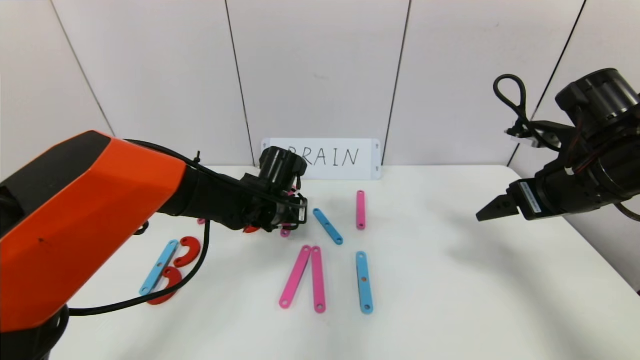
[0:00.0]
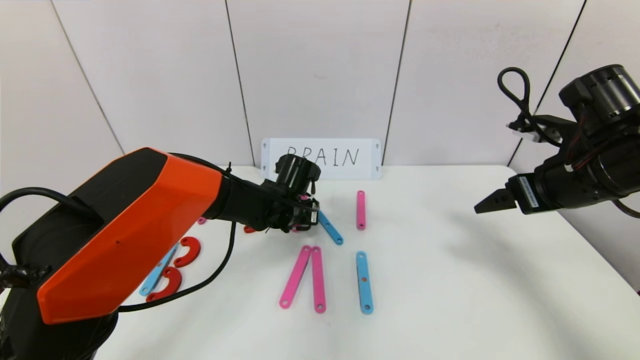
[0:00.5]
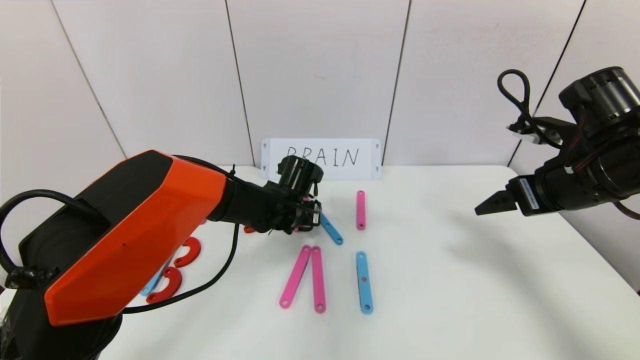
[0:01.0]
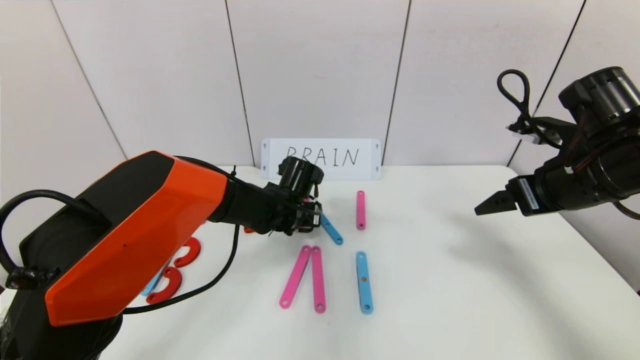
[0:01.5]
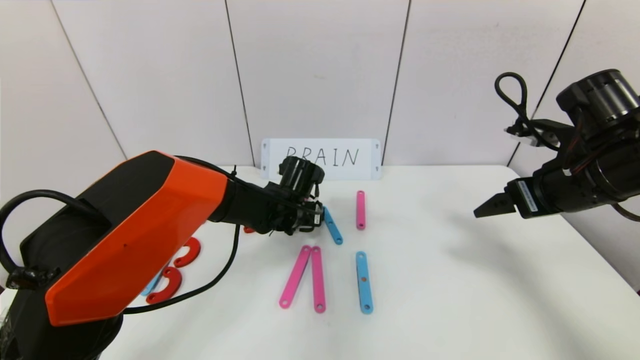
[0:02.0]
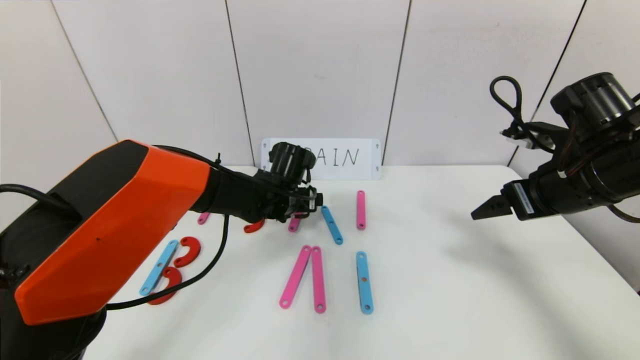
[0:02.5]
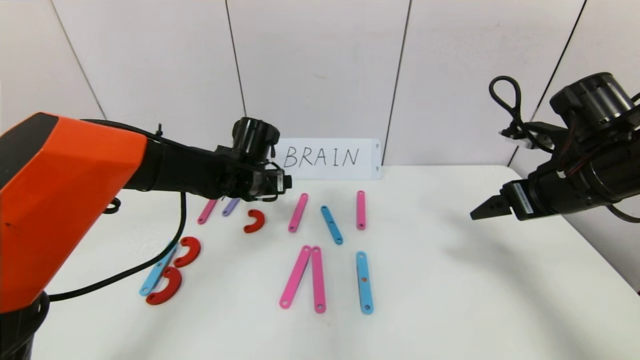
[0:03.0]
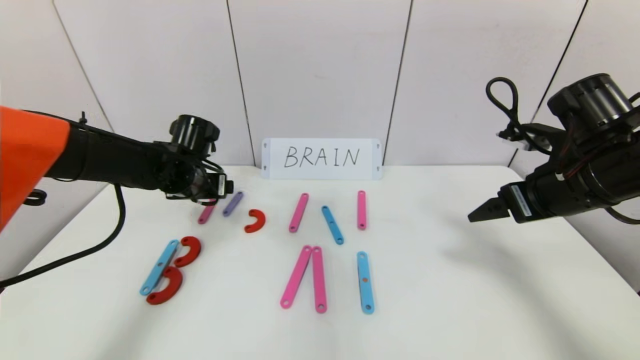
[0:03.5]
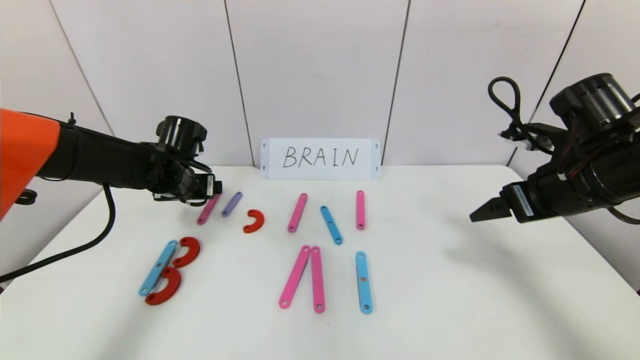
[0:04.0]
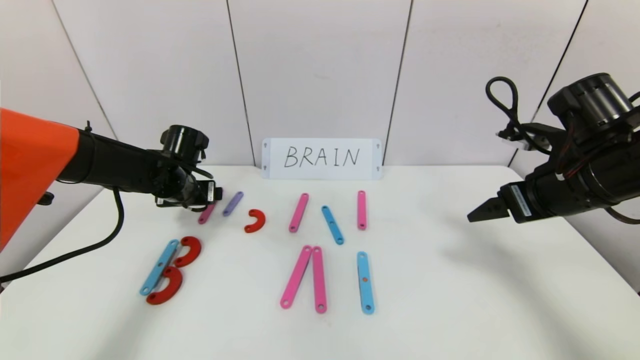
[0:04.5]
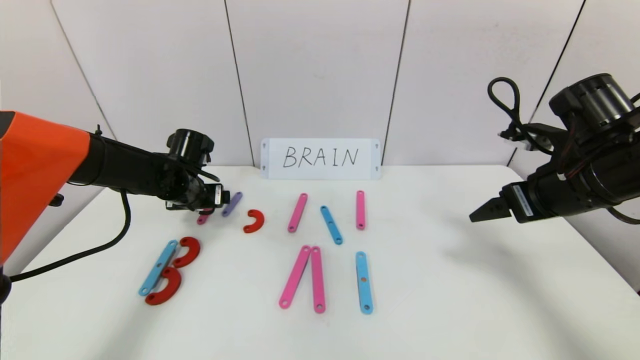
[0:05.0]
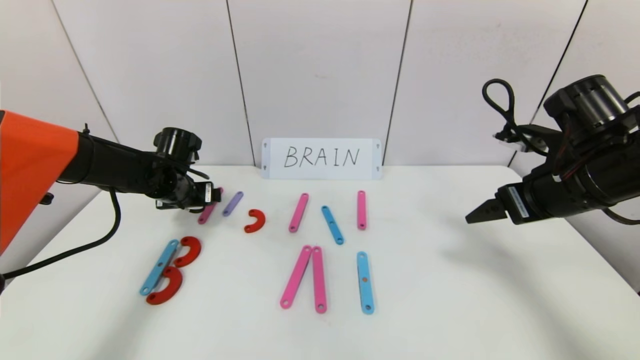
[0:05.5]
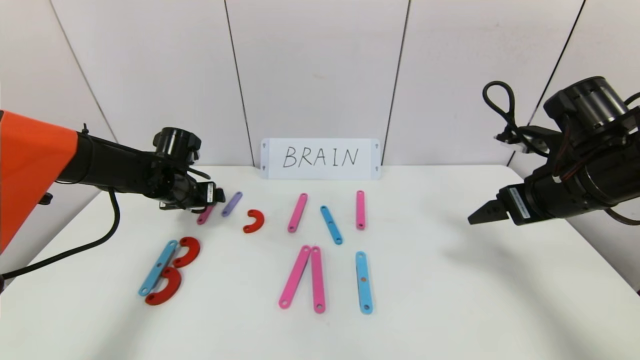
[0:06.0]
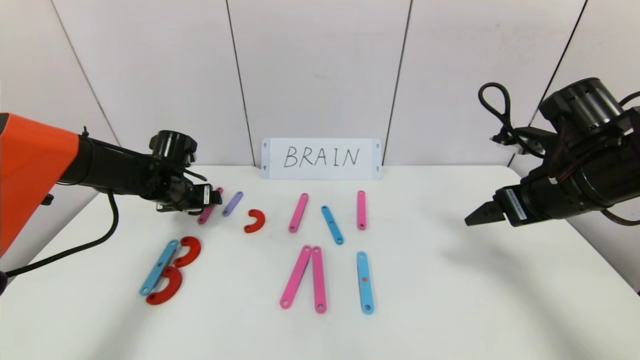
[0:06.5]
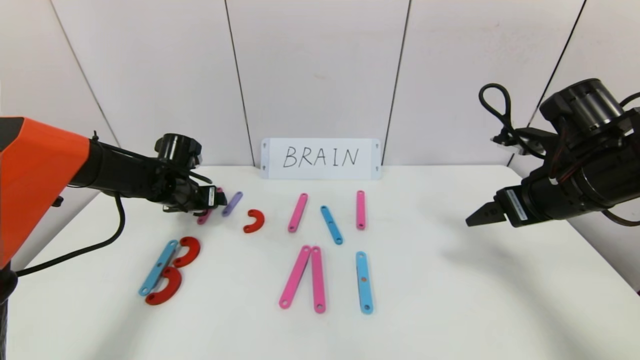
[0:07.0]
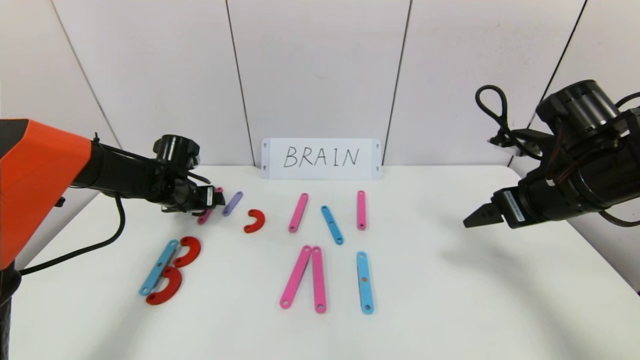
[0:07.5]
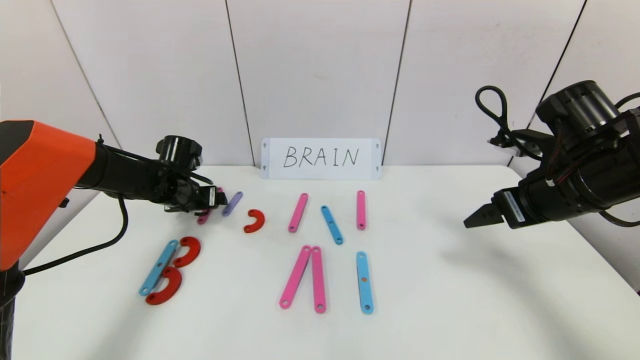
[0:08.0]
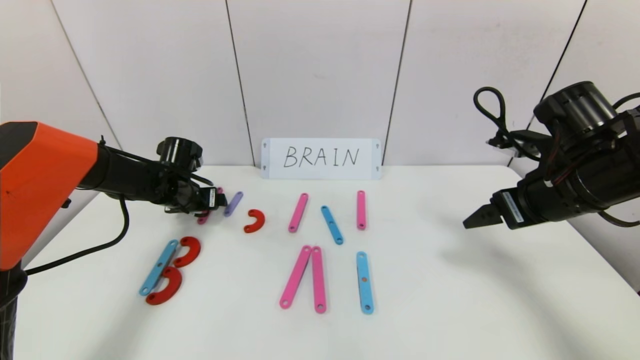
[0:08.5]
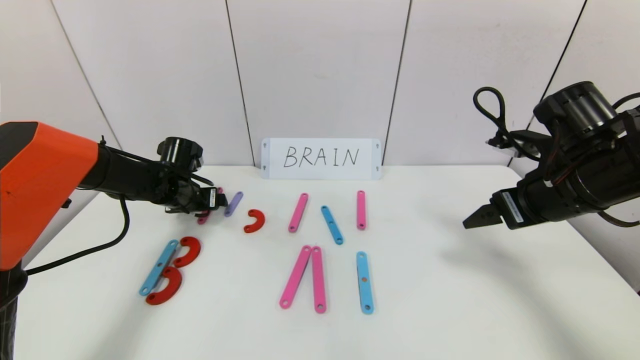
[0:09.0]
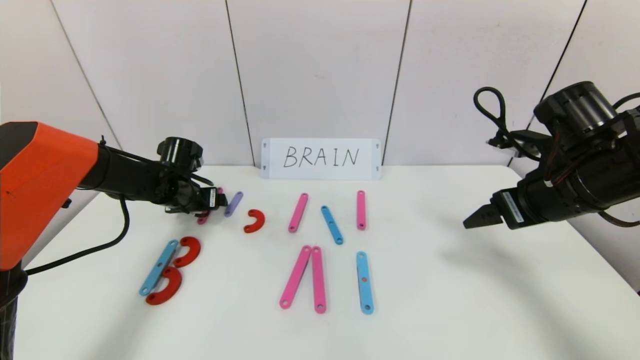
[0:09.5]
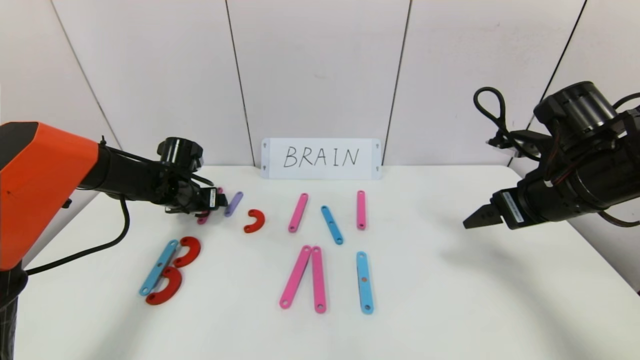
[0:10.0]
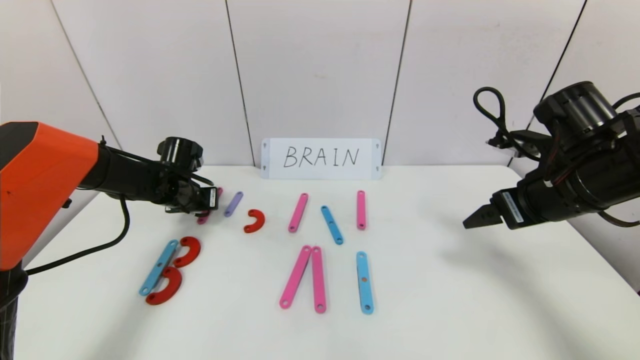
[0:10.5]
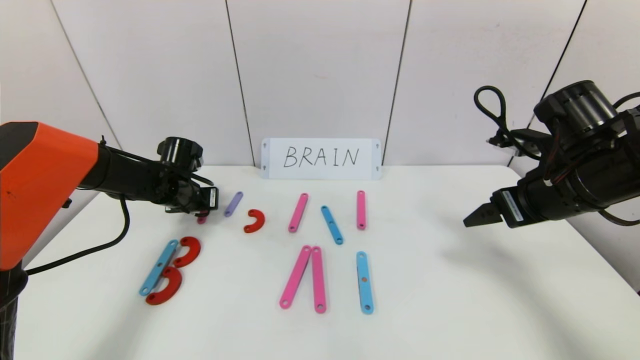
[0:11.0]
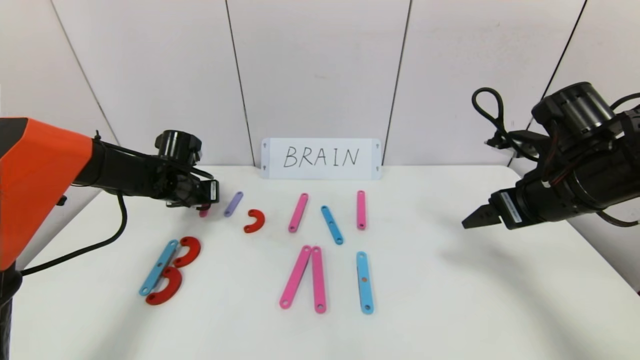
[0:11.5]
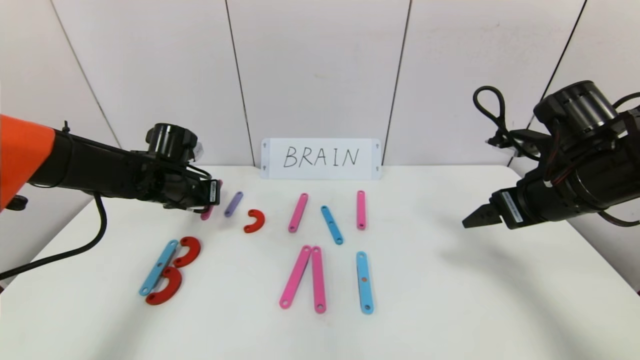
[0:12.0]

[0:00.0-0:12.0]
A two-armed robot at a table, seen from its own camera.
Task of the whole recording: rearrange the word baai as brain.
0:00.0 to 0:02.0: The left gripper opens its fingers.
0:02.0 to 0:04.0: The left gripper goes roughly 20 cm to the left.
0:04.0 to 0:08.0: The grippers stay close to where they were, moving slightly.
0:08.0 to 0:10.0: Neither gripper changes place.
0:10.0 to 0:12.0: The left gripper moves some 5 cm, and closes its fingers.

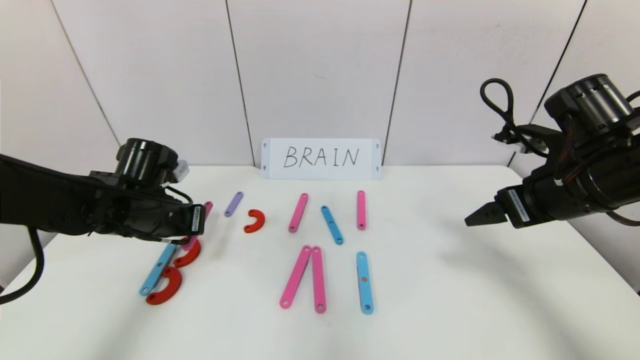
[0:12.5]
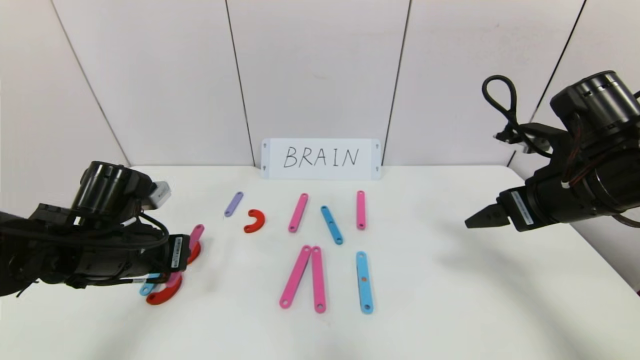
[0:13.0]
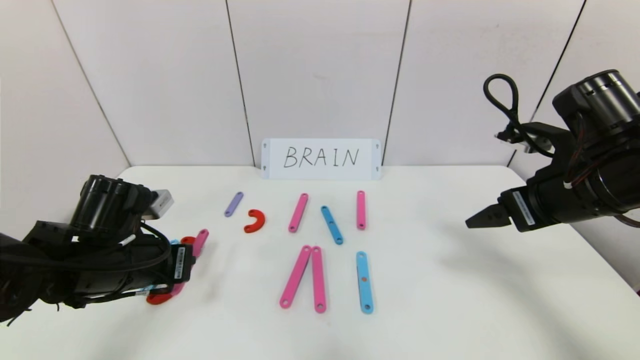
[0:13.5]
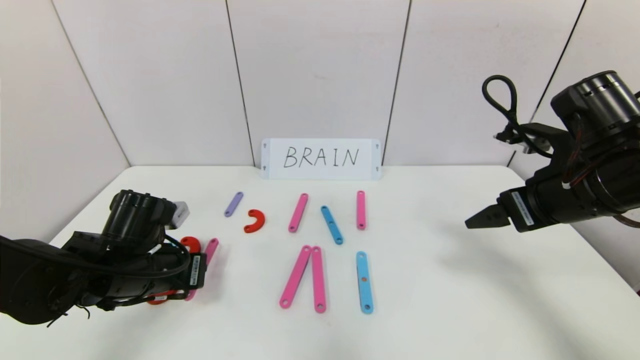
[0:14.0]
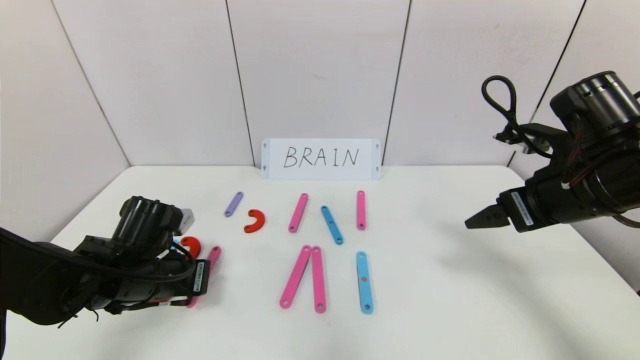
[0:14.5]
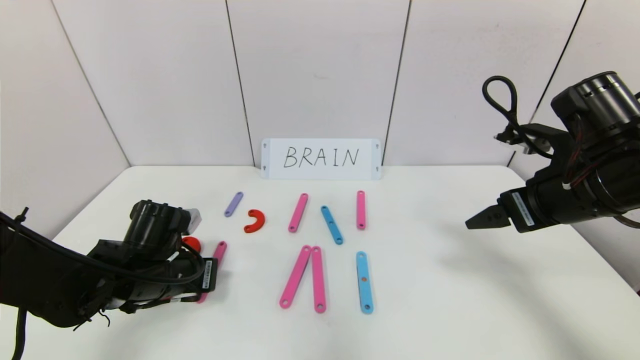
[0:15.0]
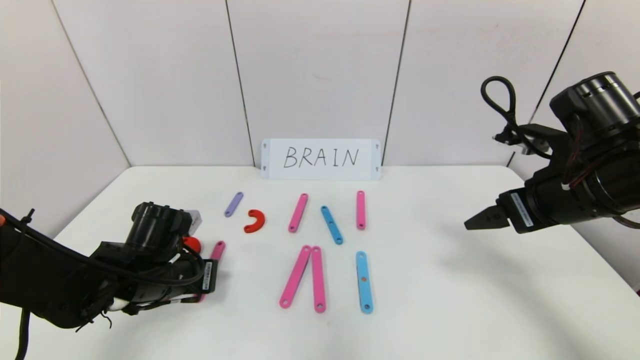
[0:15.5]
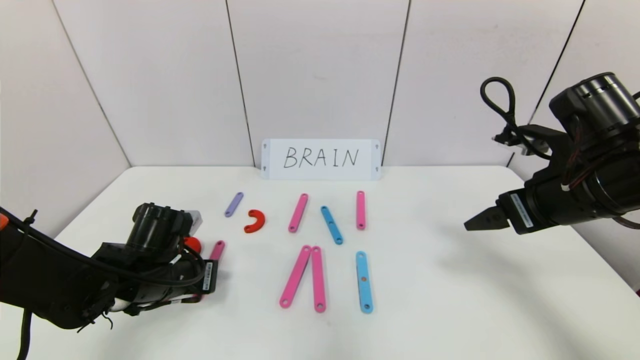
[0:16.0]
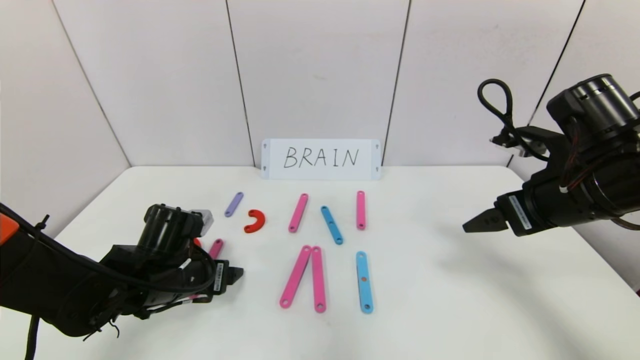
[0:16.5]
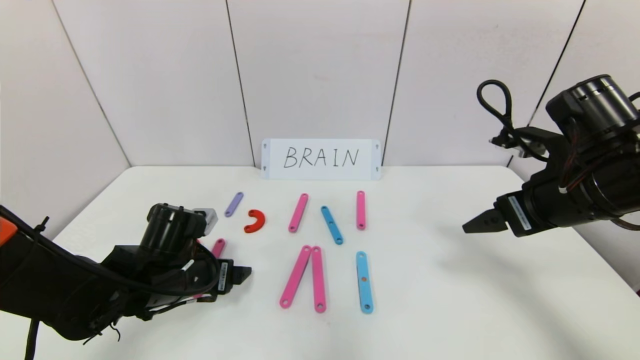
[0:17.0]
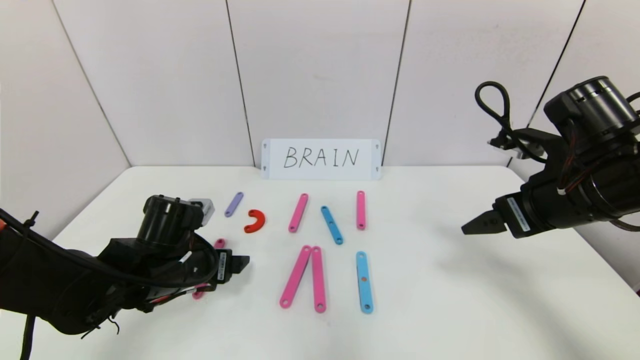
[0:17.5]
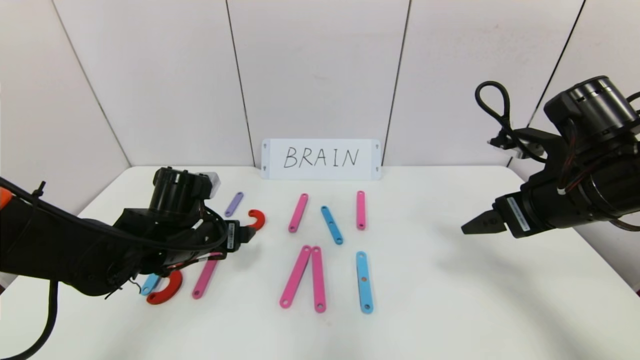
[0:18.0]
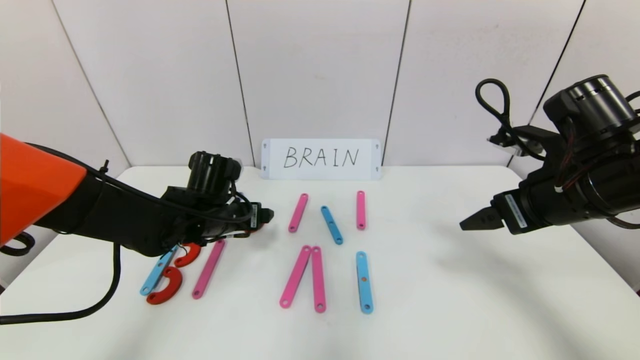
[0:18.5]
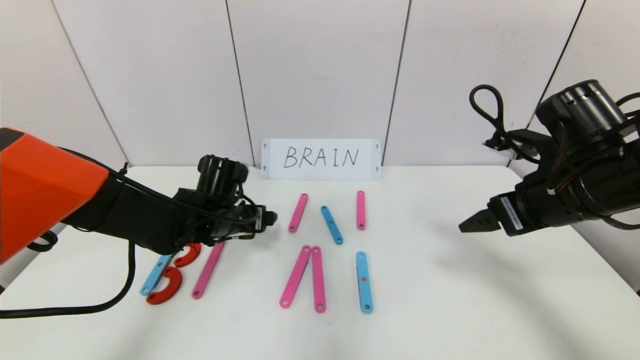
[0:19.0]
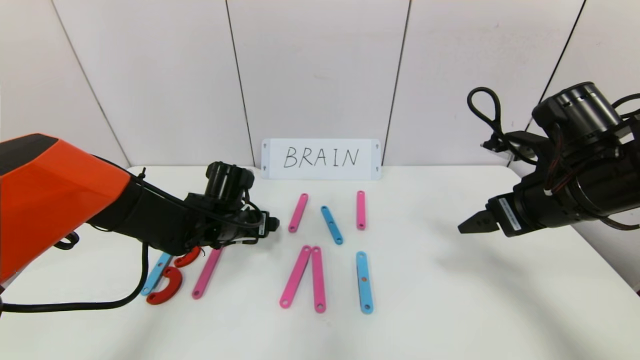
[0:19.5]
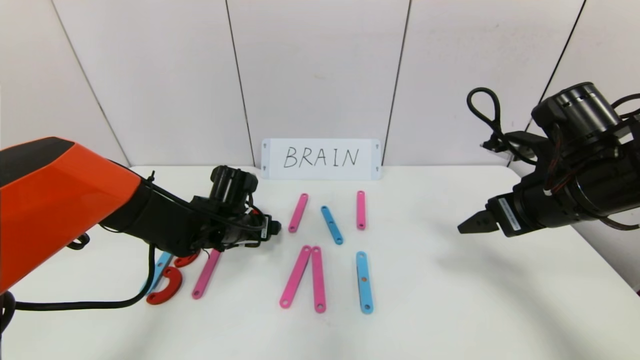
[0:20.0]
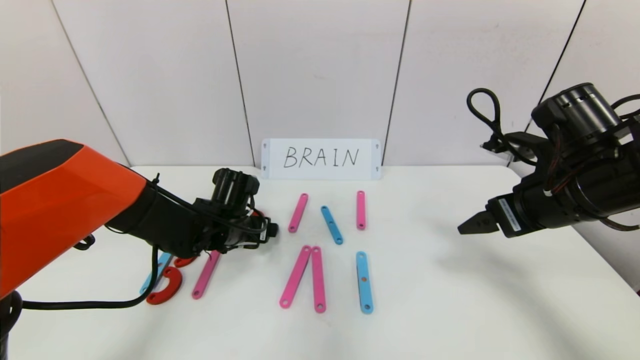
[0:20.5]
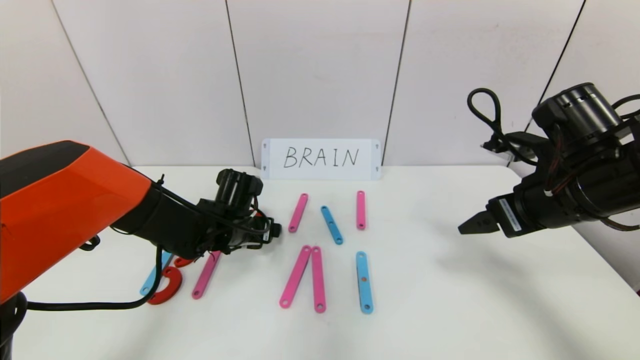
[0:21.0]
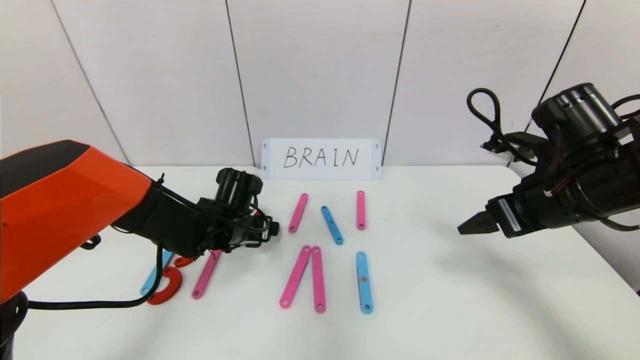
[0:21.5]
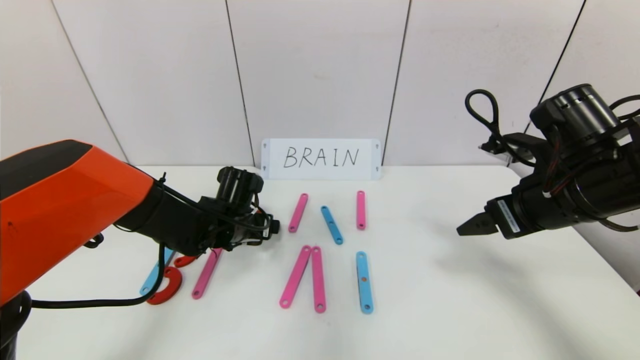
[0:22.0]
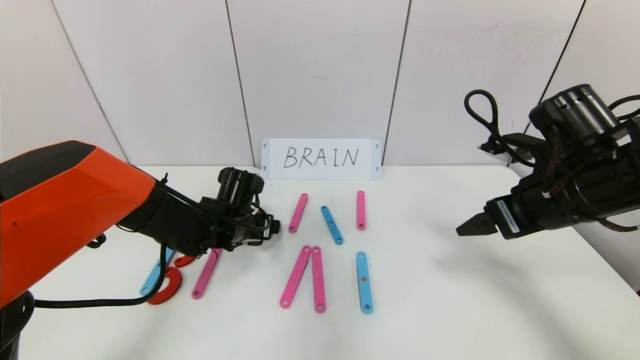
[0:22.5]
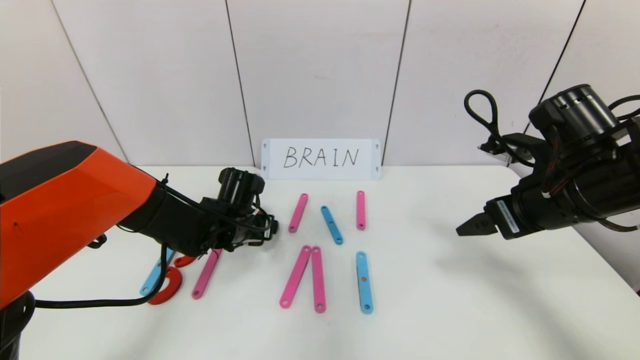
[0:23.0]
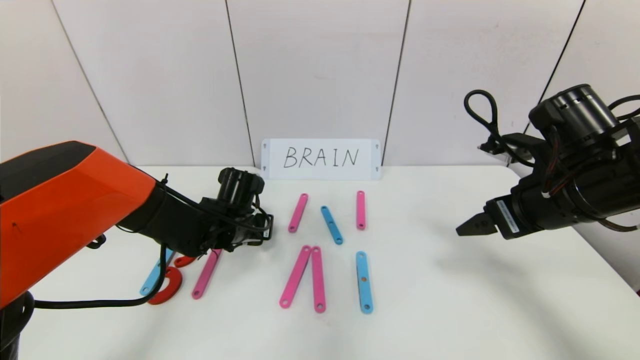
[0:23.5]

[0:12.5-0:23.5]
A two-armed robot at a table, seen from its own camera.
Task of the whole recording: rearrange the word baai as brain.
0:12.5 to 0:14.5: The left gripper goes some 10 cm backward and downward.
0:14.5 to 0:16.0: The grippers make only small movements.
0:16.0 to 0:18.0: The left gripper ends up some 5 cm from where it was, and opens up.
0:18.0 to 0:20.0: The left gripper moves forward, some 5 cm.
0:20.0 to 0:21.5: Neither gripper changes place.
0:21.5 to 0:23.5: The left gripper closes up.
